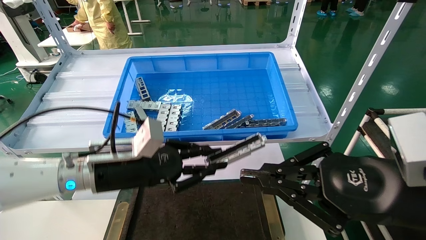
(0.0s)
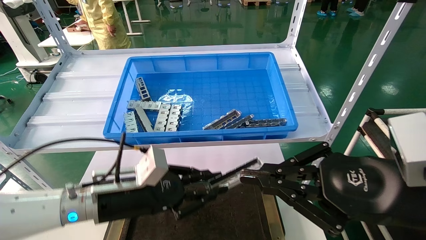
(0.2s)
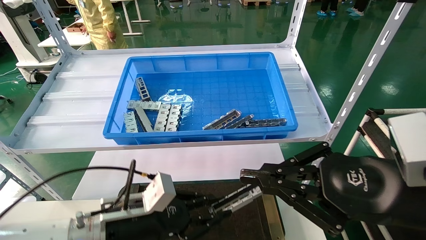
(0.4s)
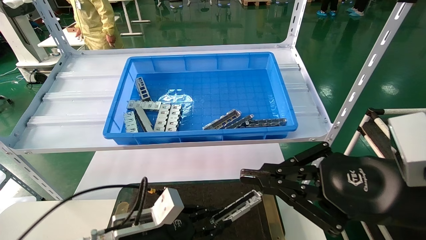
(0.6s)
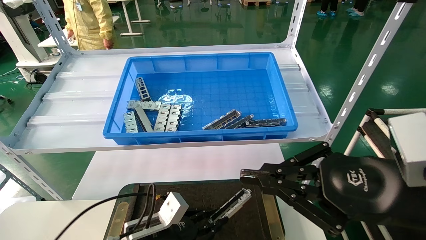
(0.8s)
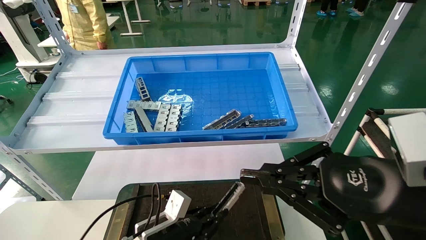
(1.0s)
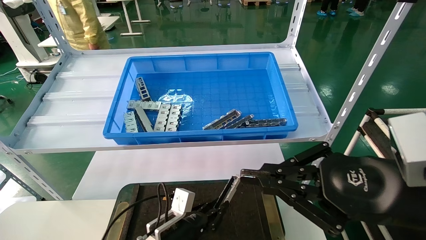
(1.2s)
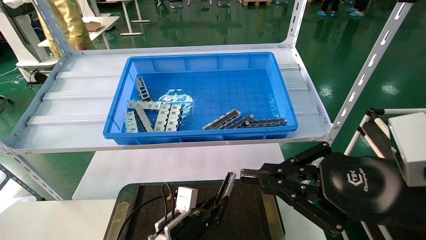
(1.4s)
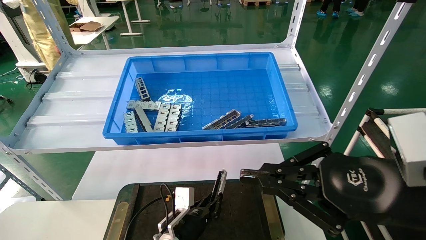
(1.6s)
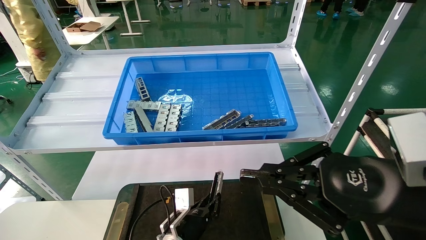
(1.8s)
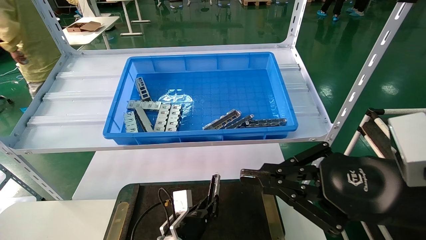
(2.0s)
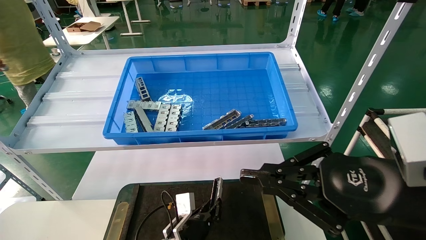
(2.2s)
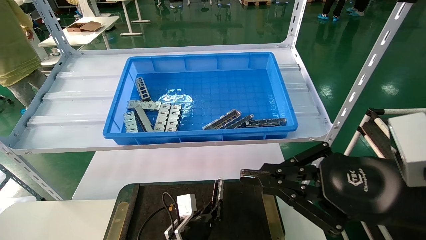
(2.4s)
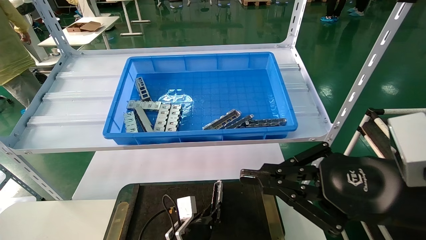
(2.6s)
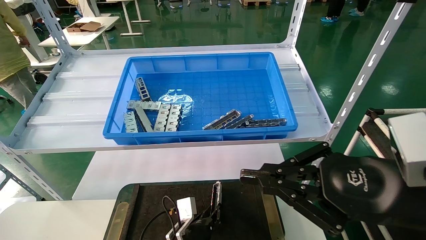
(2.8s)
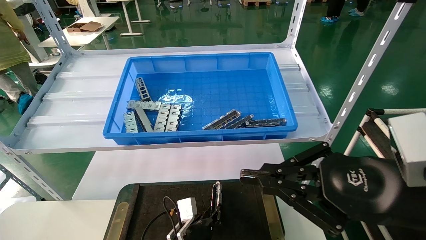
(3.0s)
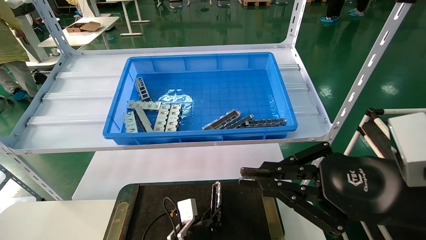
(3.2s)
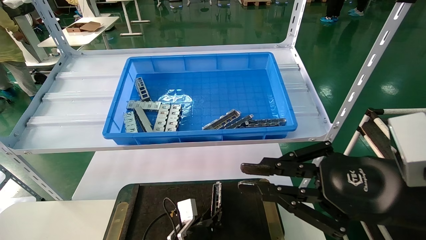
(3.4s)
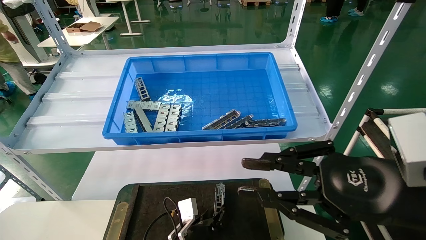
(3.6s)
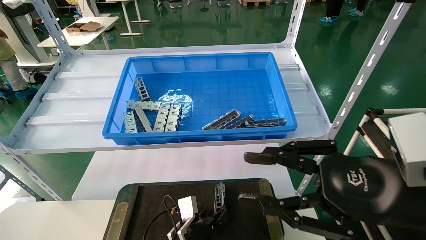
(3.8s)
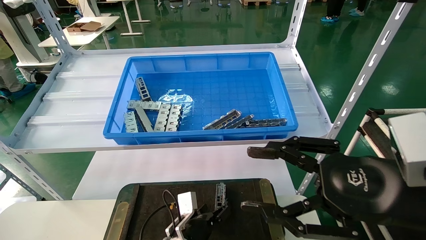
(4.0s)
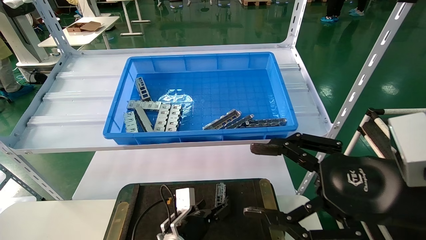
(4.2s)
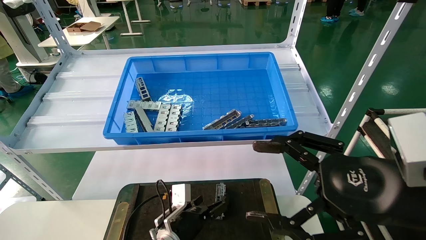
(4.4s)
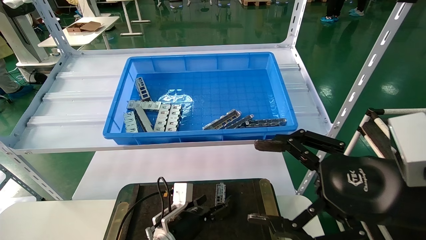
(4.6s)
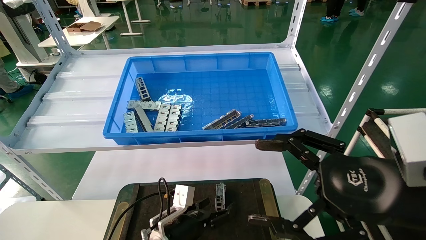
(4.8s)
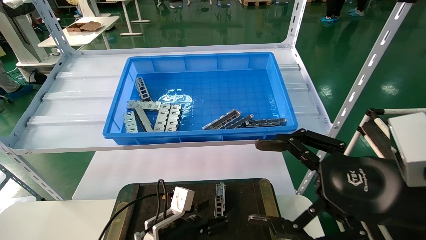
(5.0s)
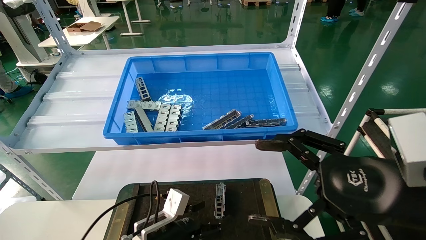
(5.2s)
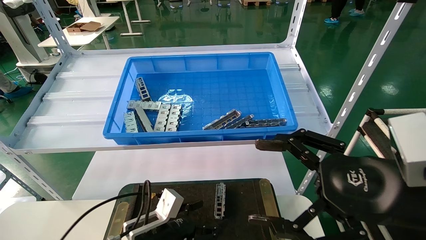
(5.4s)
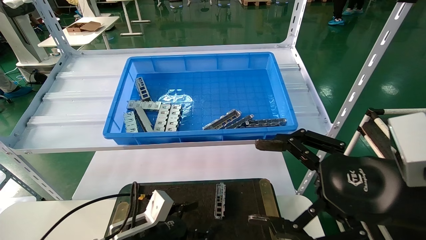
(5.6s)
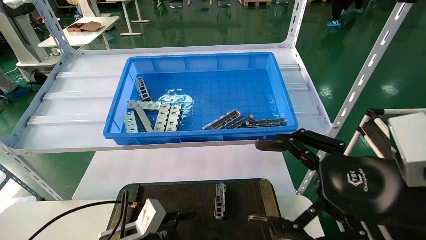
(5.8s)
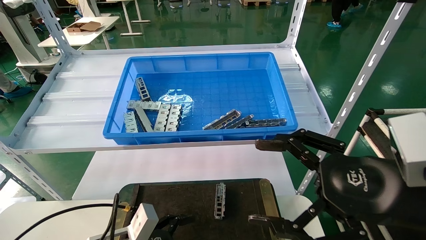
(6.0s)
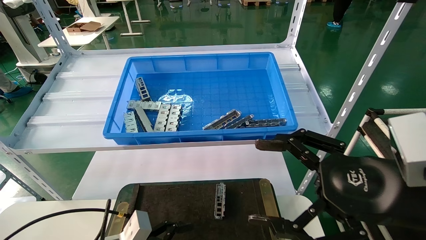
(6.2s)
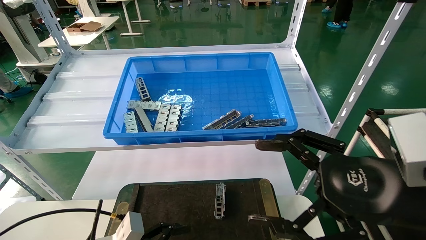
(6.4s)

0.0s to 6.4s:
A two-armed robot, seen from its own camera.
Task of the whole recording: Grasp the part with one hand and place it on the black container.
Step, 0.0s to 3.4s: Place the front USB bracket into the box.
0.0s to 1.6s: The left gripper shifts some 25 cm downward and to the right.
1.6s to 3.2s: There are only small adjustments of the grippers.
3.2s to 4.8s: The left gripper travels upward by approximately 5 cm, and opens. Meanwhile the right gripper opens its fingers.
4.8s to 6.4s: The left gripper goes about 15 cm to the left, backward and upward.

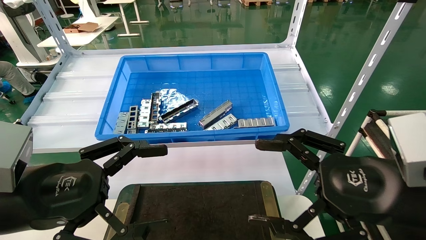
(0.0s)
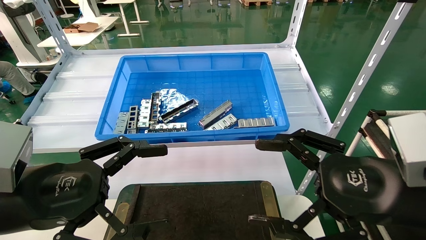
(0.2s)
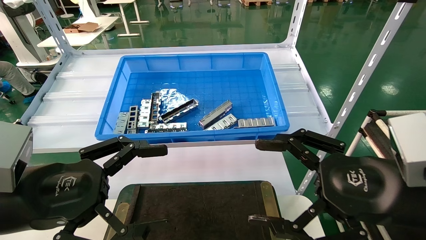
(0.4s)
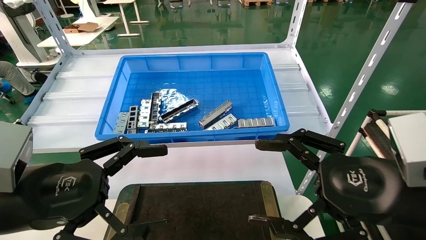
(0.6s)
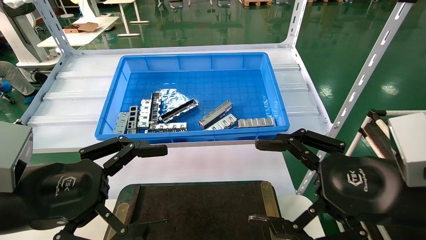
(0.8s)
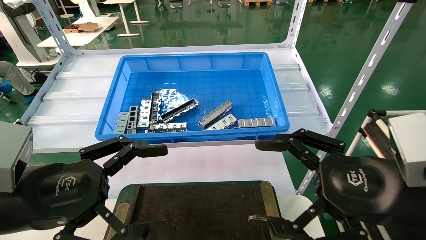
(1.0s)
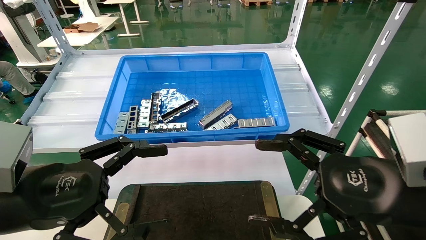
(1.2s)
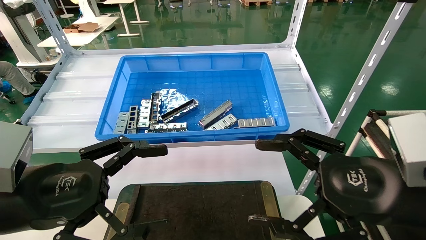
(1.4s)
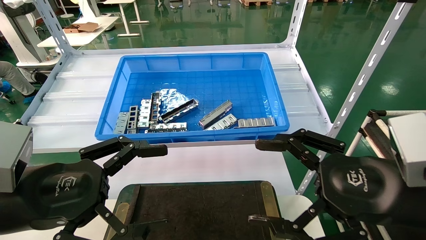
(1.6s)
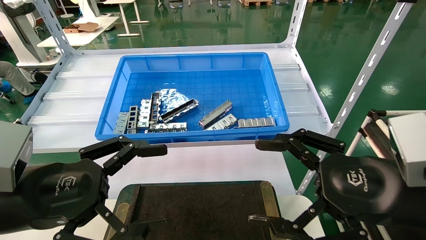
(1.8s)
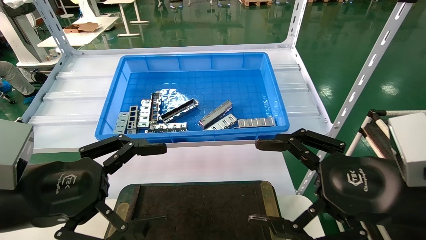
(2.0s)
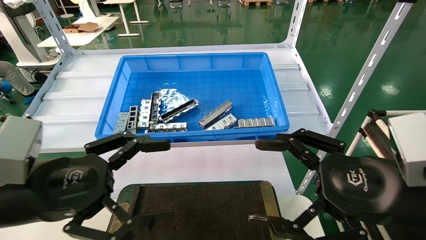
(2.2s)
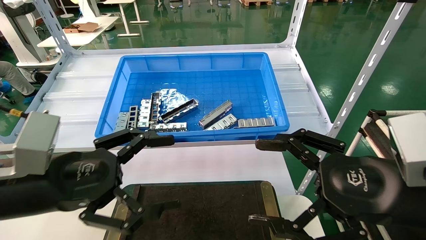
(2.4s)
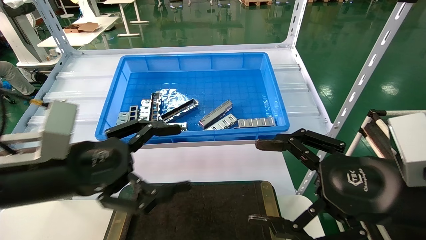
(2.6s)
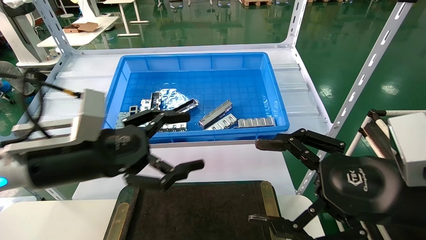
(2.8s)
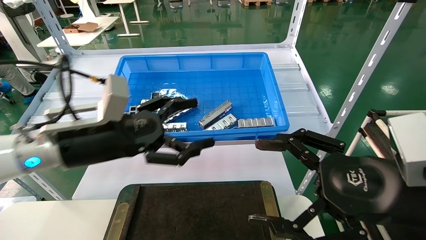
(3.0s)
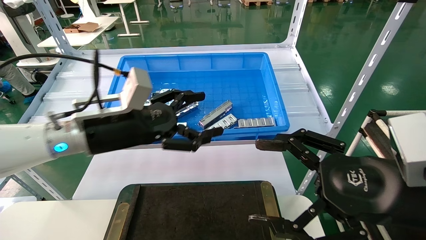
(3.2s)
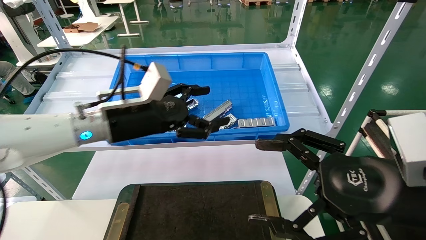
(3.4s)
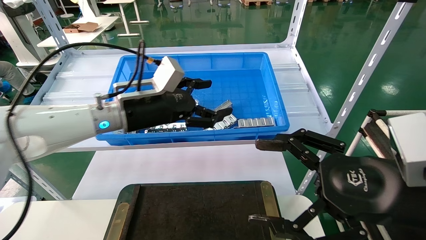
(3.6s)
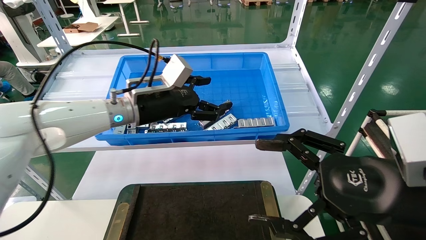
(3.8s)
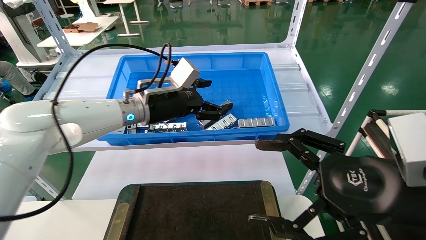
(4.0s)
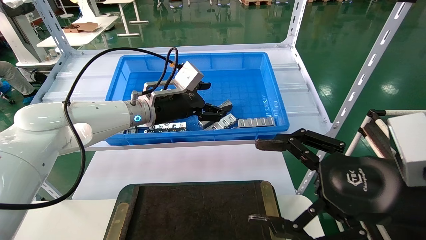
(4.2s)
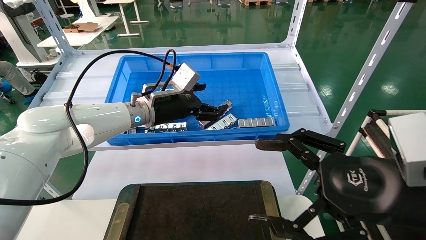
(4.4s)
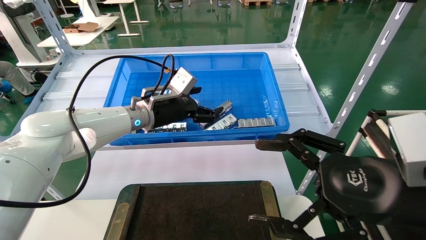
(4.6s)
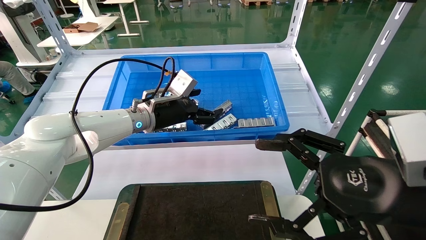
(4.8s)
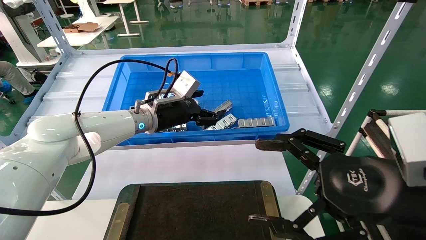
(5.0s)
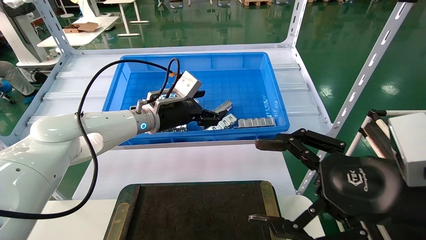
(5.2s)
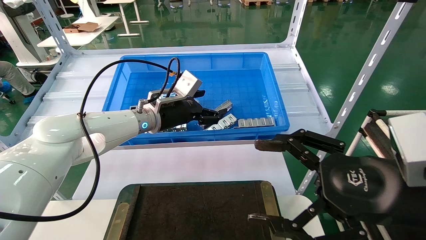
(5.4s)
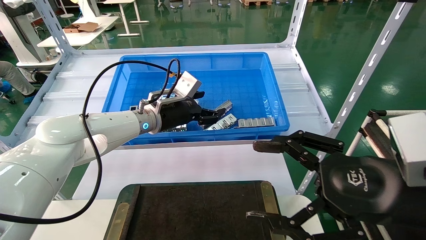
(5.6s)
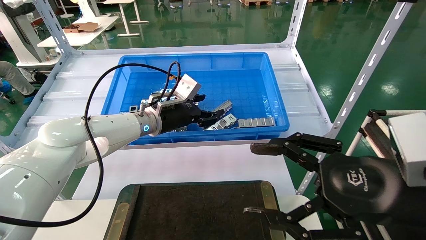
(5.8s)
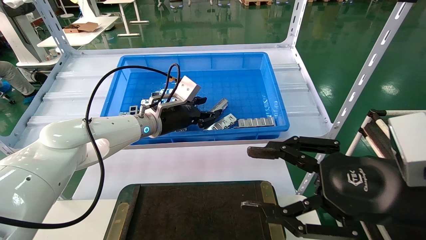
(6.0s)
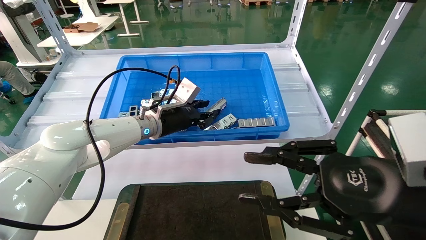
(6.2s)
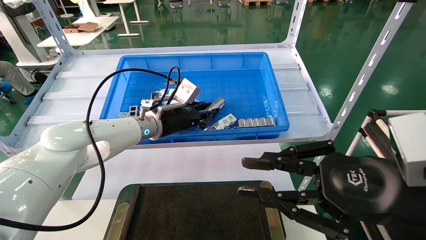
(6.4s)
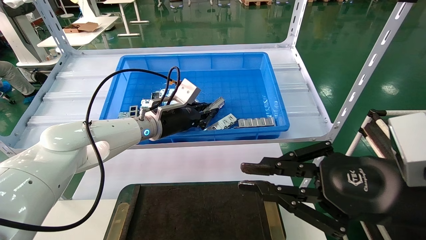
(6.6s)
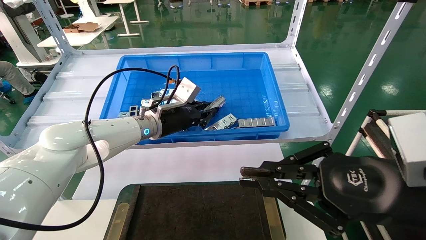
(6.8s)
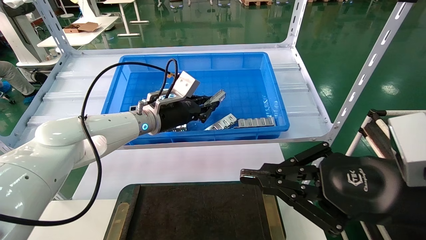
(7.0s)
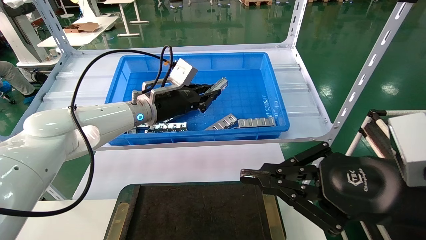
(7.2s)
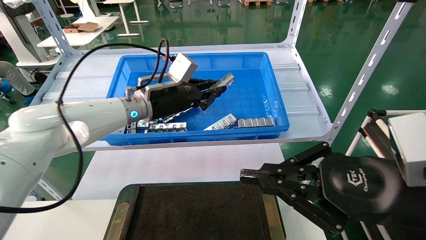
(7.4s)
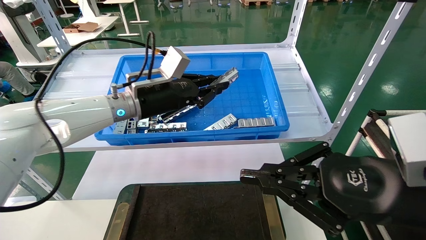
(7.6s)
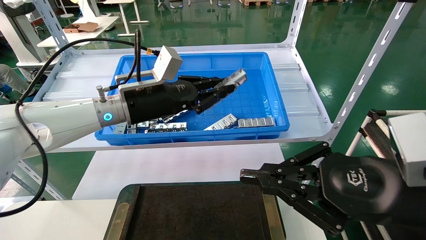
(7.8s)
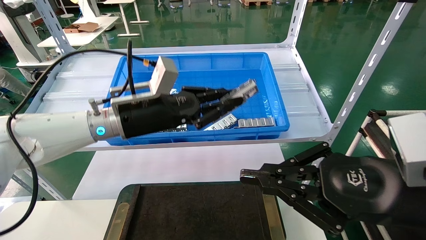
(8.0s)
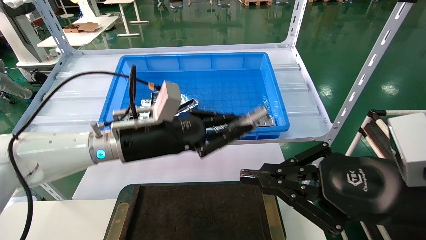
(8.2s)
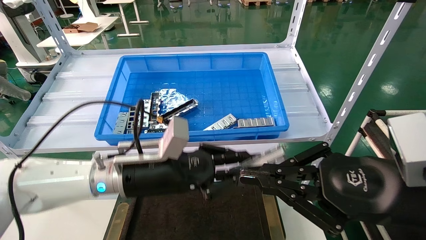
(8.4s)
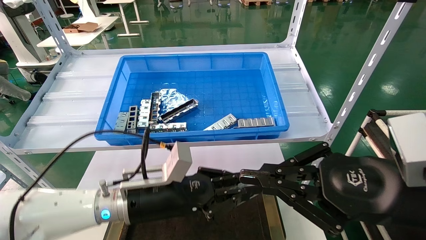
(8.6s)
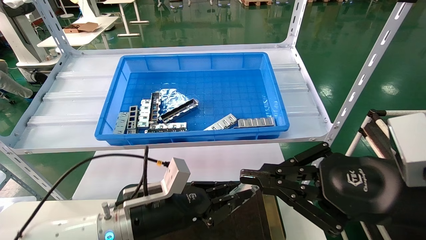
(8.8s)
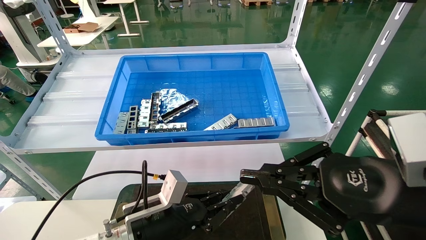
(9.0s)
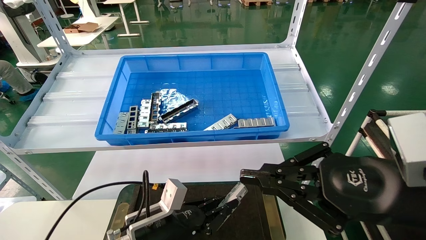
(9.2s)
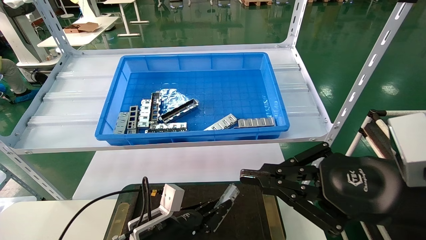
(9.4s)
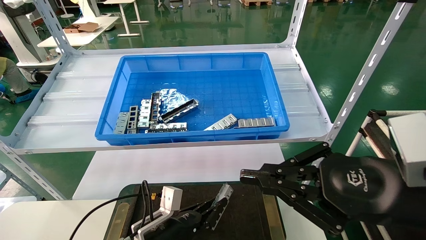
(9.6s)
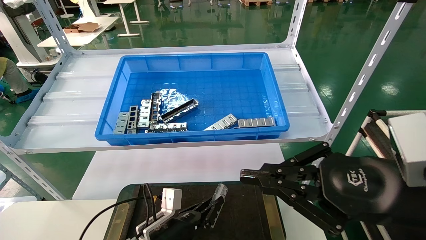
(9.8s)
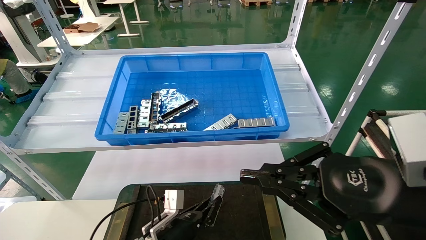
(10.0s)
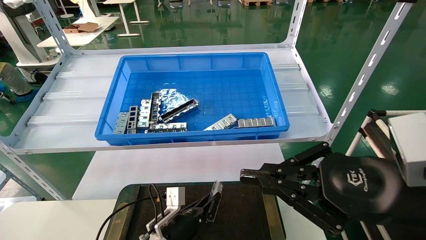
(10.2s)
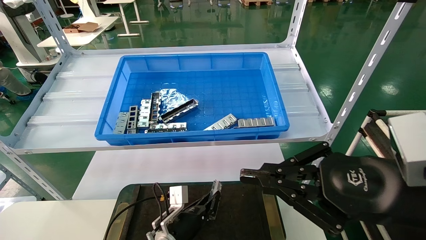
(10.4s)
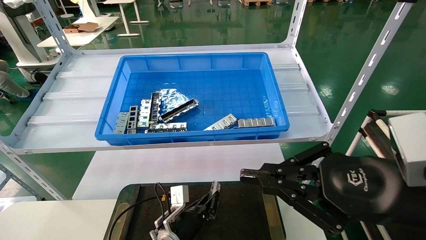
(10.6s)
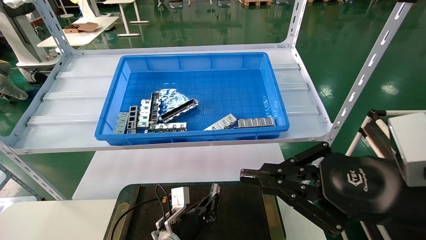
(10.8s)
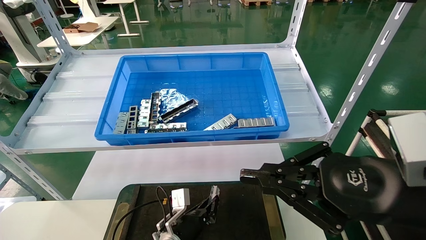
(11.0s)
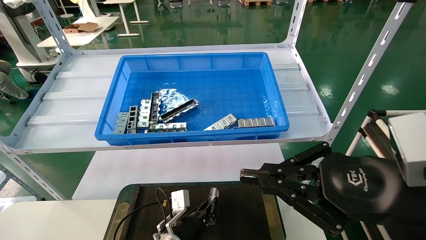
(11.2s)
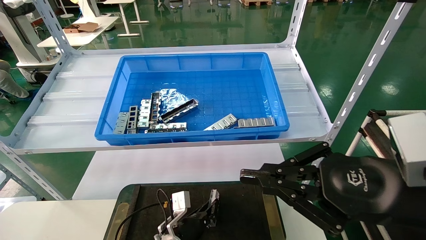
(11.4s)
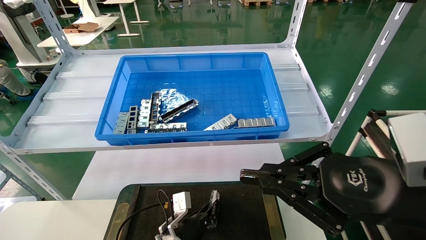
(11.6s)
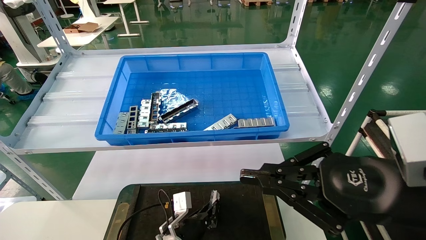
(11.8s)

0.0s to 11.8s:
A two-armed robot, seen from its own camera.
Task of the whole recording: Grasp the part with one hand and place it on the black container.
Step, 2.0s to 6.4s: Pick up the front USB bracket from the feeding area.
0.0s to 1.4s: Both grippers stay about where they are.
1.4s to 3.0s: The left gripper is displaced forward and to the right by approximately 15 cm.
3.0s to 4.4s: The left gripper moves forward and to the right, some 20 cm.
4.4s to 6.0s: The left gripper closes.
6.0s to 7.4s: The right gripper closes. The left gripper moves about 5 cm, and closes its fingers.
7.4s to 8.8s: The left gripper moves downward and backward, approximately 25 cm.
8.8s to 10.4s: The left gripper goes some 15 cm downward and forward.
10.4s to 11.8s: The grippers move only a little.
